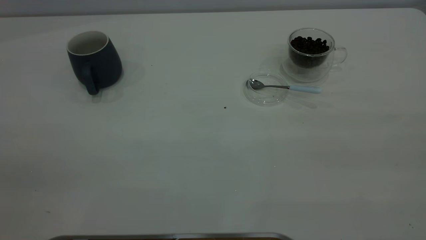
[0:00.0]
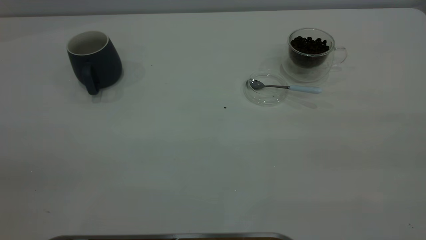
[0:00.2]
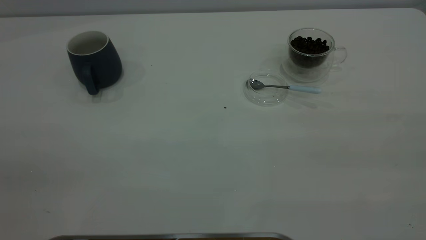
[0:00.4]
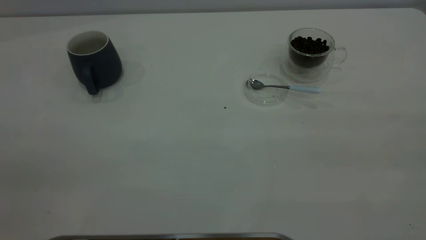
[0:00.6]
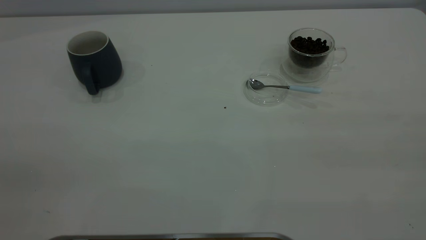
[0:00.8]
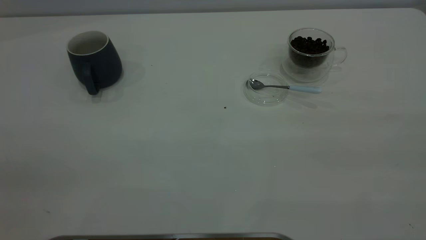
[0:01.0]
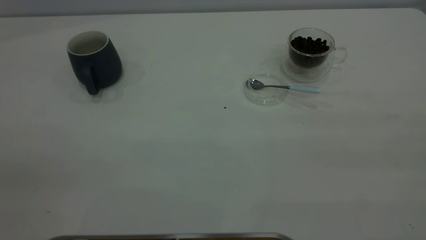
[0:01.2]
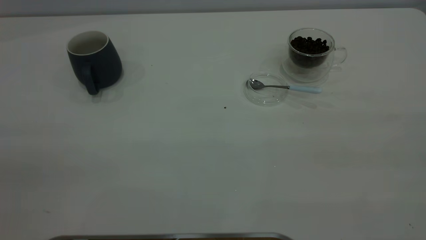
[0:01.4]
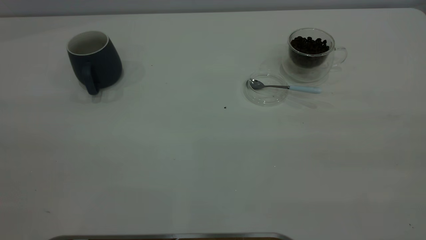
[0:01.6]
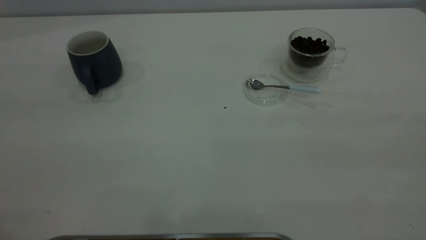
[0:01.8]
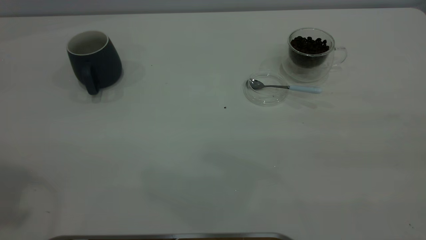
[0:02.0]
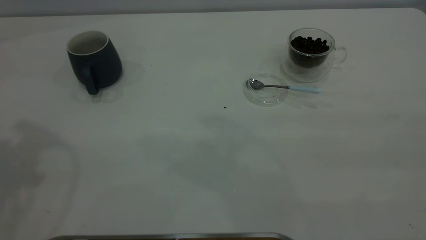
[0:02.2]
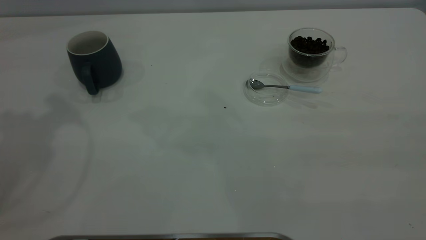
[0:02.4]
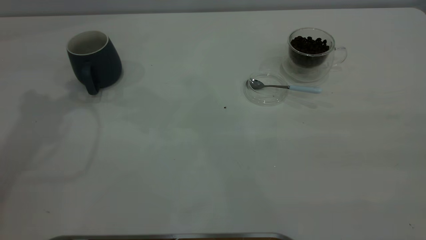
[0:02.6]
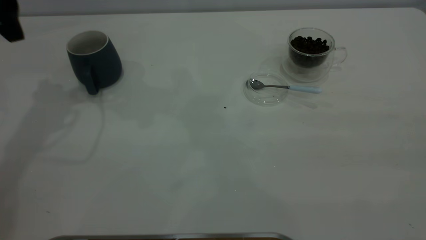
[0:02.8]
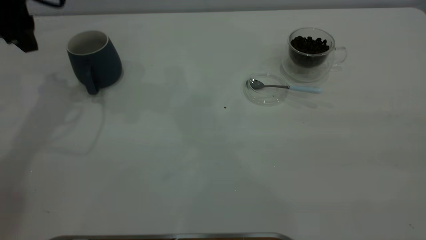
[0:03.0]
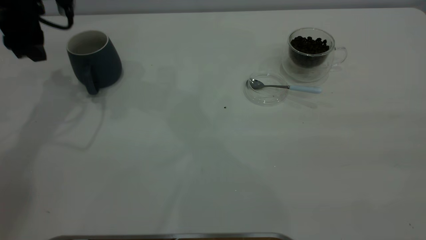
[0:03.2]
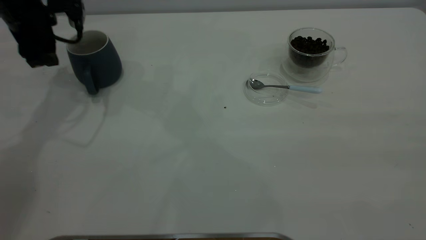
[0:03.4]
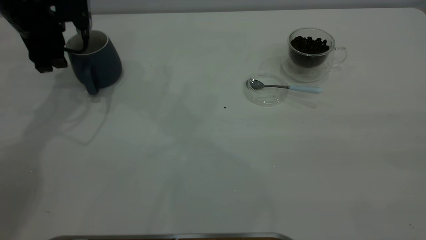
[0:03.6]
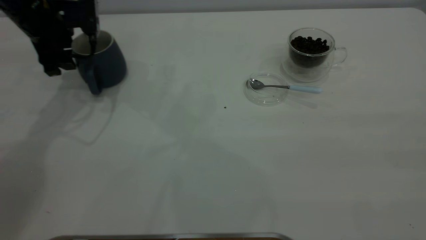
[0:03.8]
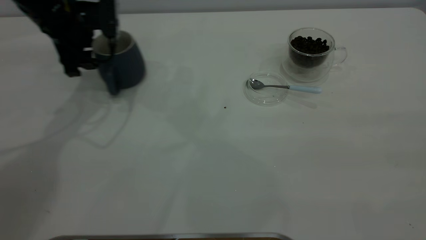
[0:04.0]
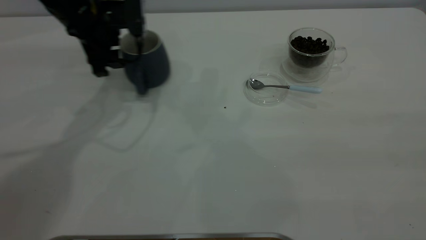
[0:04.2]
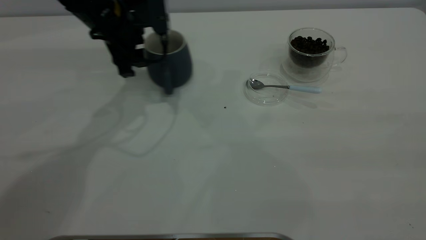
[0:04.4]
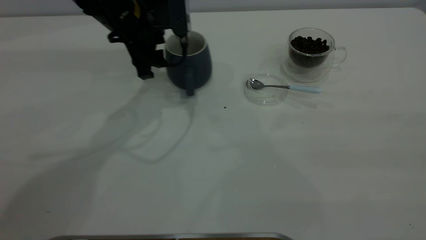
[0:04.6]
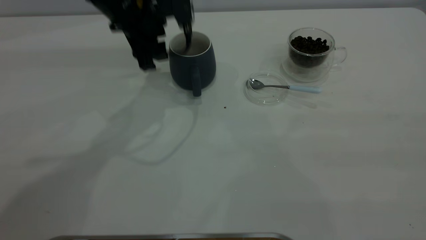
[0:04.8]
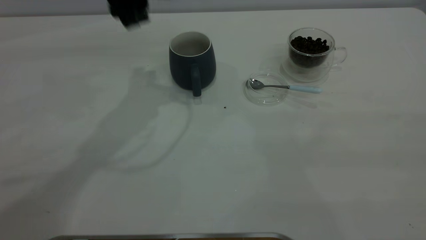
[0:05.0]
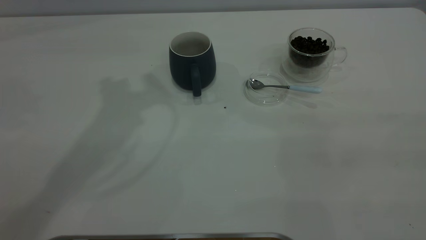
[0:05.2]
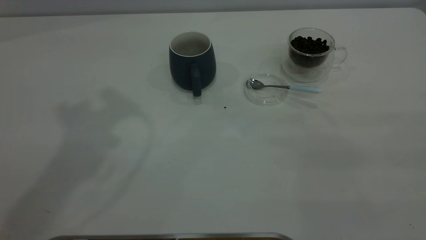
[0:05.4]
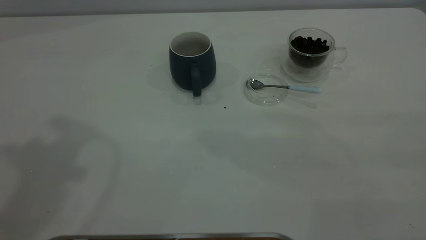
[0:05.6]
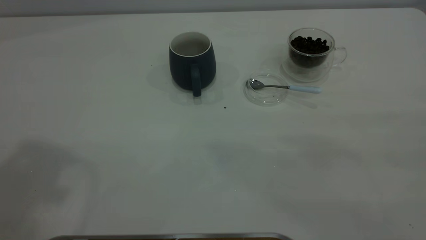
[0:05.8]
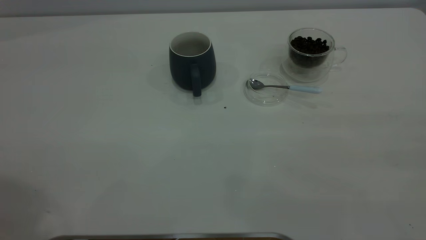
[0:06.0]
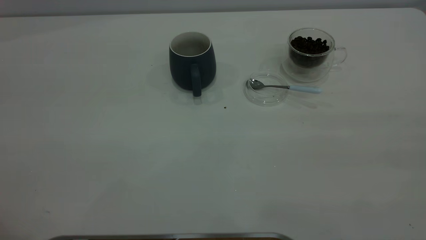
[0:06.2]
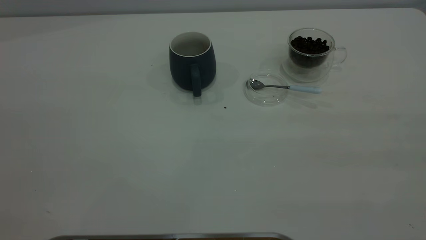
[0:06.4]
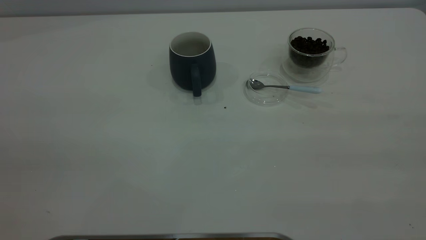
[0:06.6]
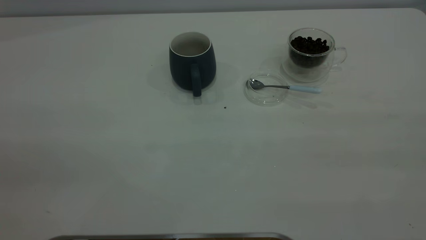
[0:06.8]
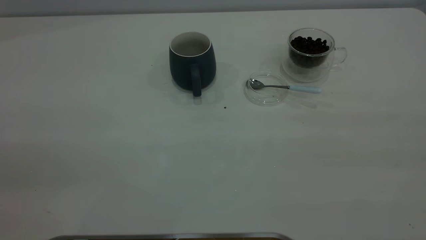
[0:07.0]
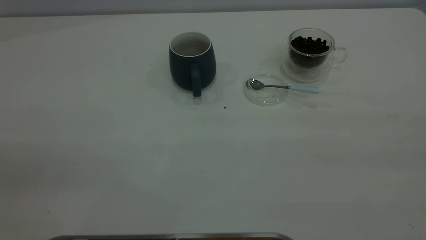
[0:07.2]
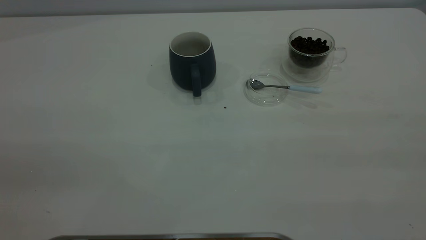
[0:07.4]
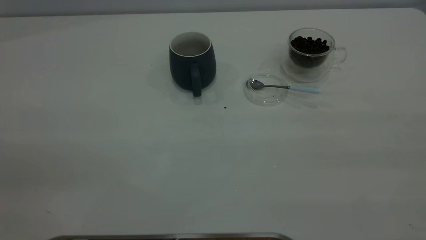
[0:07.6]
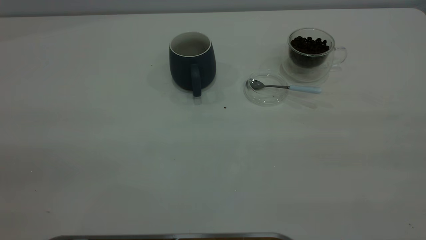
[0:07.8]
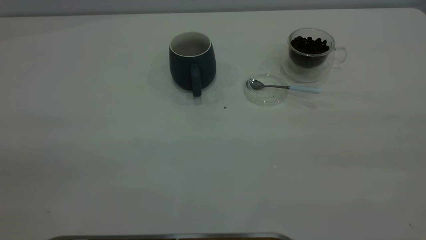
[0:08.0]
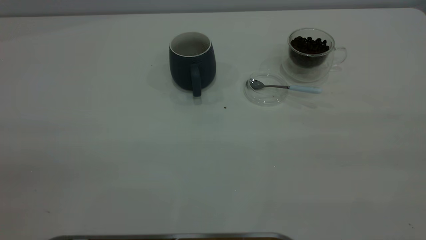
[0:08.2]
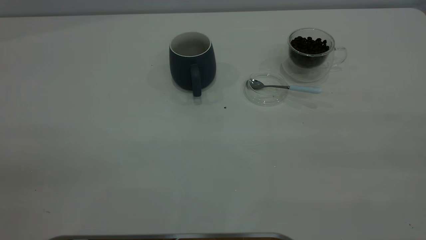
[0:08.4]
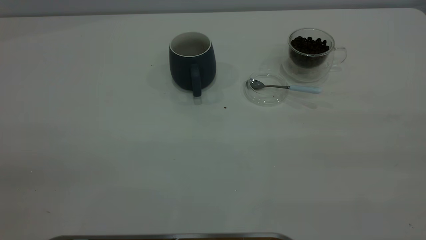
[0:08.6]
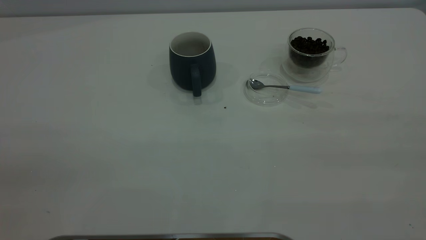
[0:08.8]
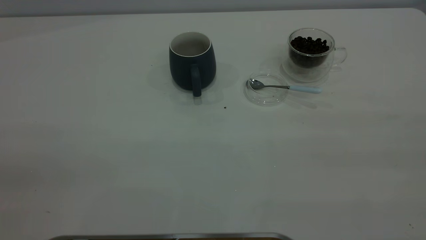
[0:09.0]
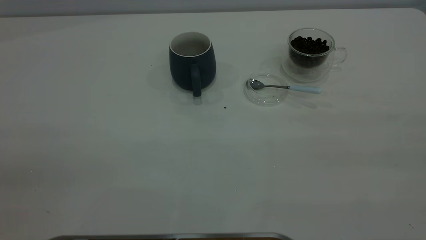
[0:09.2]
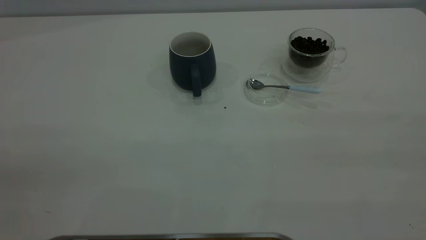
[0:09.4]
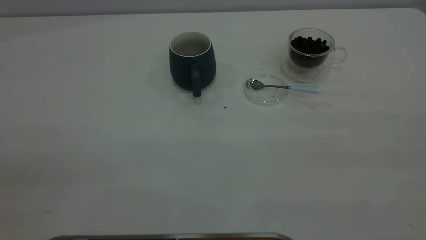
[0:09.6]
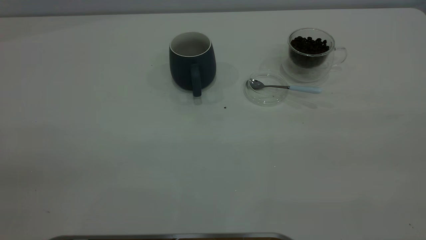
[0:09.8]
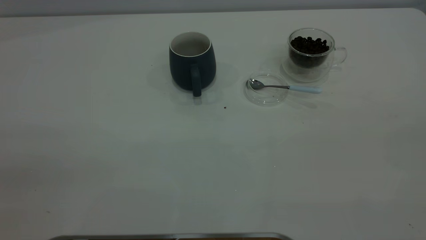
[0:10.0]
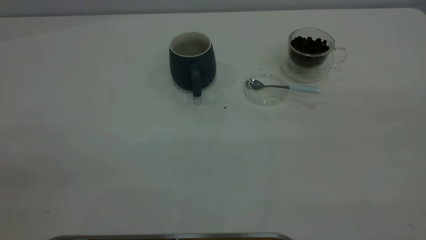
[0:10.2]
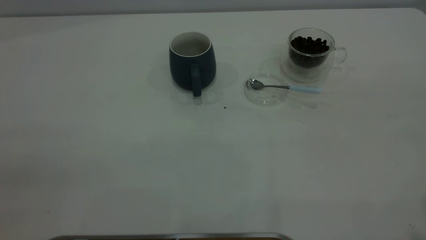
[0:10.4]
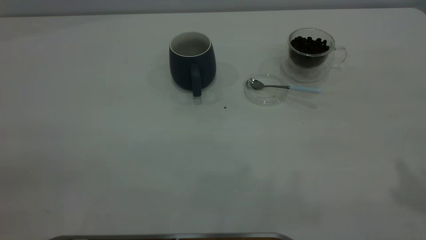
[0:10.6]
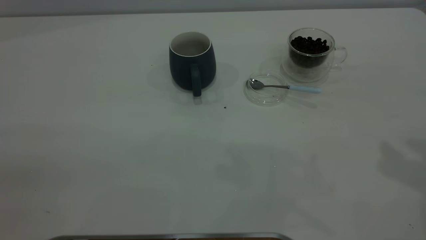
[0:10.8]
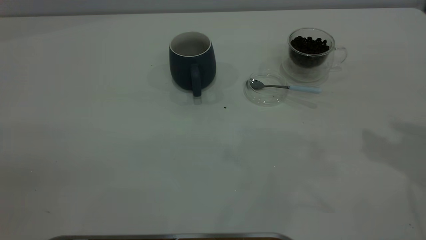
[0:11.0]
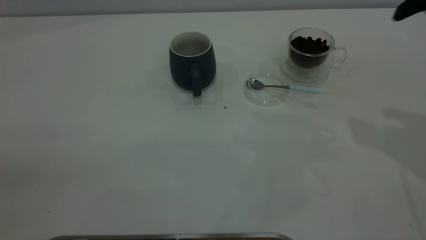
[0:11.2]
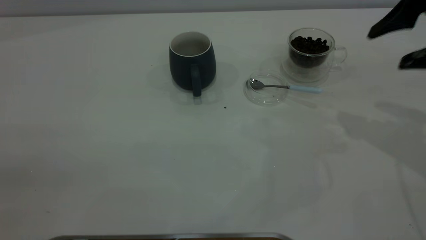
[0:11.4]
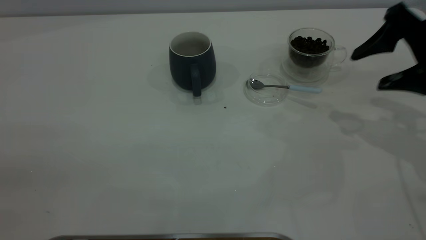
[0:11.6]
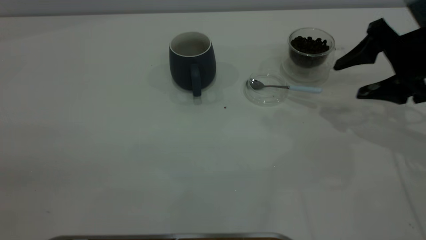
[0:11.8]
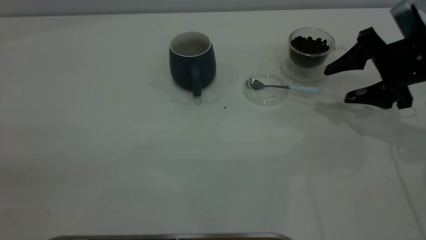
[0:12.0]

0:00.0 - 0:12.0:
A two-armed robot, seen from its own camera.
Task of the whole recording: the left gripper place the grey cup in the center of the table, the right gripper take the blue spoon from the cup lid and scoop out the coffee beans from the coffee cup and put them into the grey cup, the right gripper put the spoon back into the cup lid.
Step, 0:00.0 - 0:04.8: Move the cup to the center of view.
0:01.6 - 0:03.0: The left gripper heads forward and downward, covering approximately 40 cm.
0:03.0 - 0:04.4: The left gripper shifts some 15 cm to the right and downward.
0:04.4 - 0:06.0: The left gripper shifts approximately 50 cm upward and backward.
0:10.4 - 0:12.0: The right gripper is displaced downward and forward by approximately 35 cm, and opens its fingers.

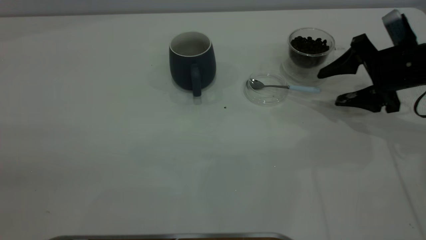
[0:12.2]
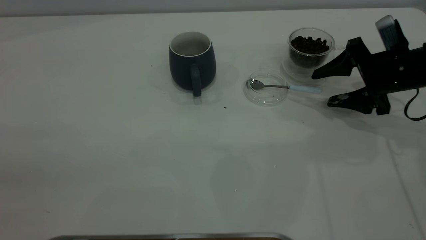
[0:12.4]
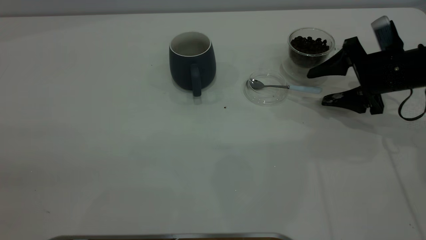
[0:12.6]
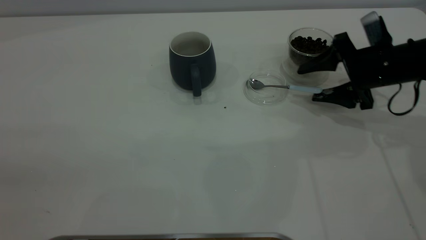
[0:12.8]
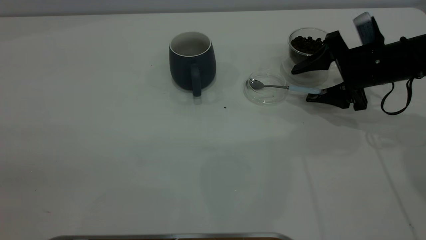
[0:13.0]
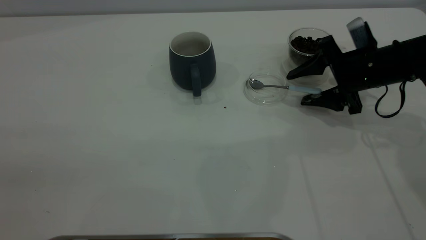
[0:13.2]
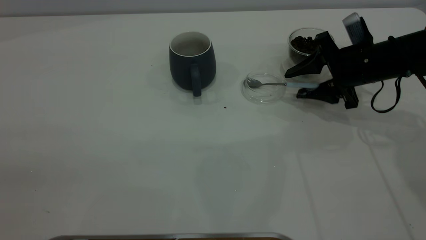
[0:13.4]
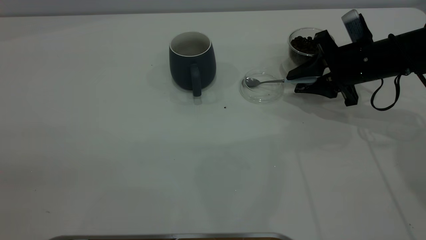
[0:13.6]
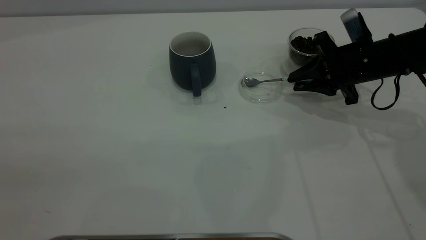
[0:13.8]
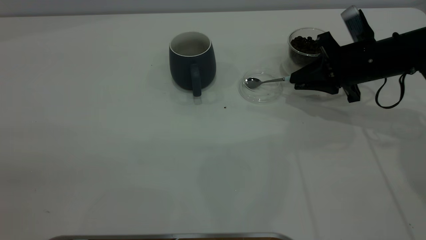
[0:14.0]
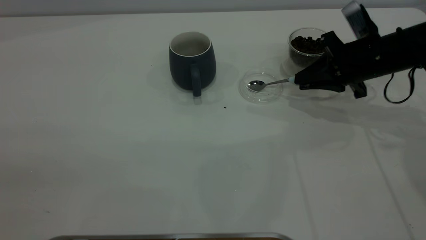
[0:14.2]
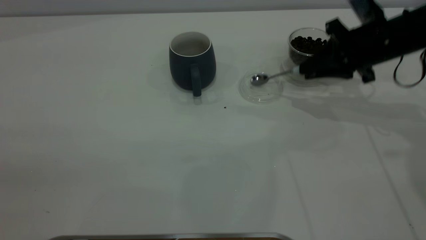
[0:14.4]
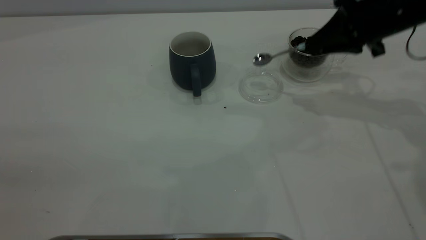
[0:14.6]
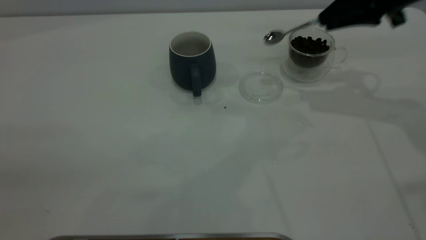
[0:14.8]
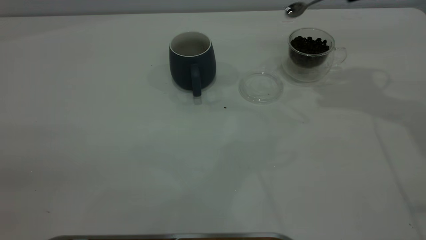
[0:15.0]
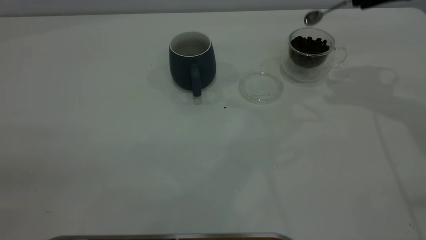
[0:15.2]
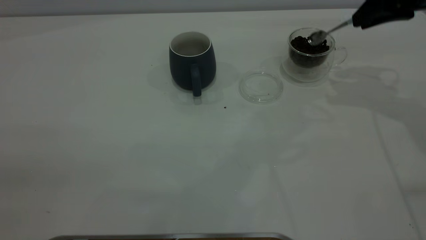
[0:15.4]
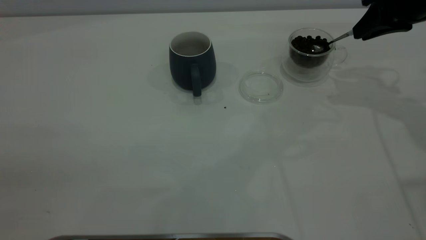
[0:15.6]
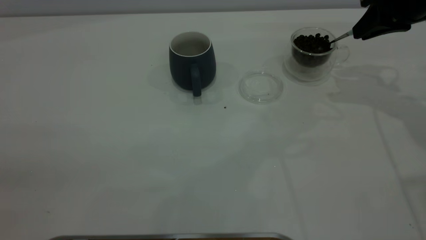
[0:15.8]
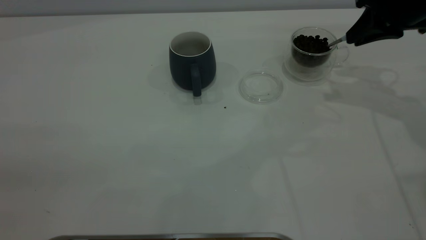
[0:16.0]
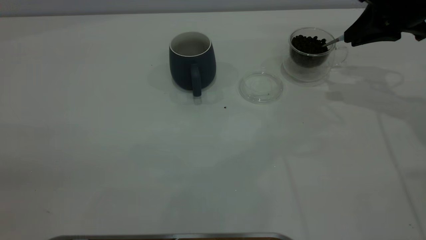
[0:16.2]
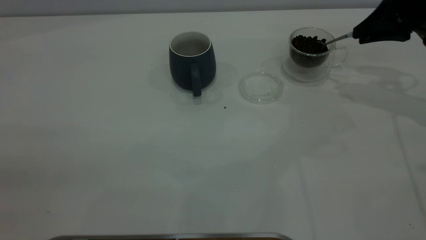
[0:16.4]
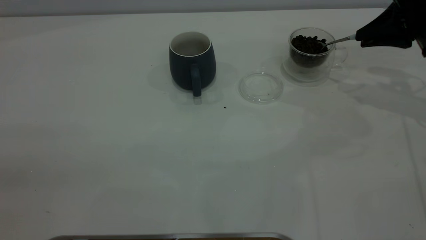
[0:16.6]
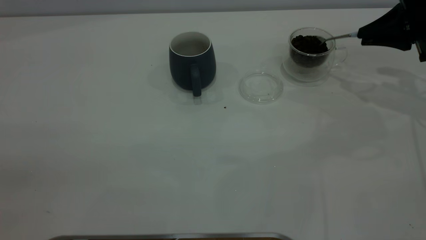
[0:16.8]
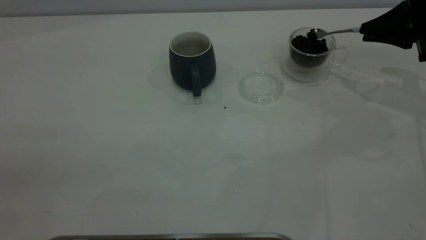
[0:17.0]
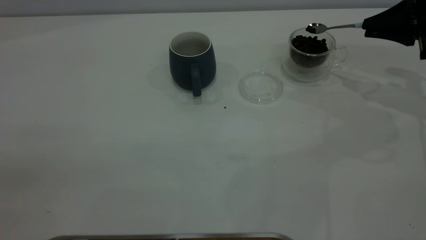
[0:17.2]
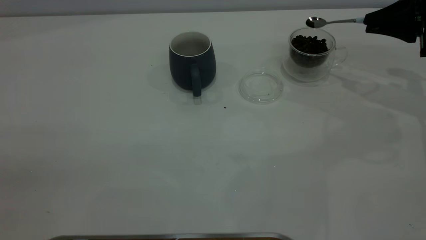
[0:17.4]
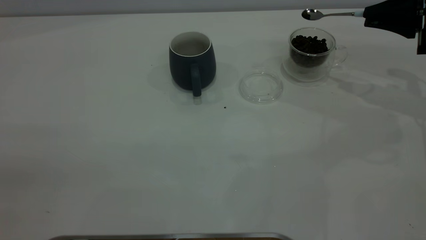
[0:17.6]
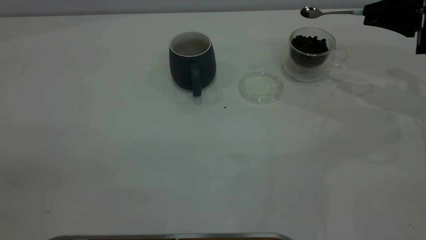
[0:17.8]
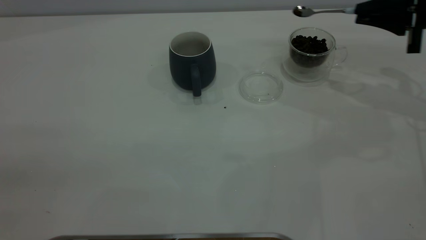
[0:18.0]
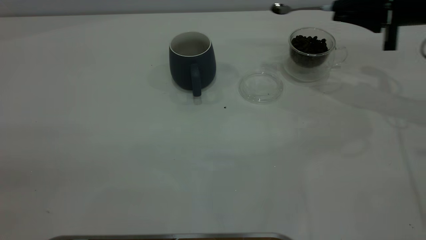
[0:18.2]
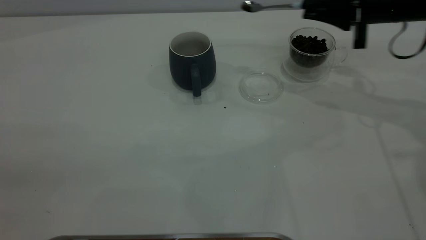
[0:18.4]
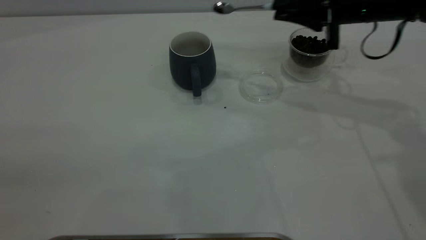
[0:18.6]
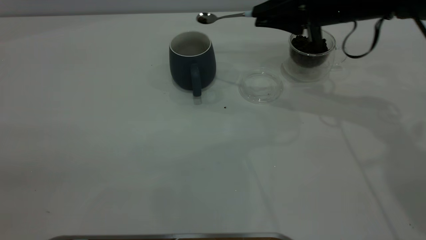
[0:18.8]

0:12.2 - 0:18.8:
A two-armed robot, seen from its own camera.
Task of the whole recording: the left gripper place the grey cup in the center of the table, the right gripper take the blue spoon from the cup lid and scoop out the coffee beans from the coffee cup and put them into the grey cup, the right gripper put the spoon back into the cup lid.
Step, 0:12.2 - 0:14.4: Pick up the spoon.
0:12.2 - 0:13.8: The right gripper ends up about 5 cm from where it was, and closes its fingers.
0:13.8 - 0:15.4: The right gripper shifts approximately 15 cm upward.
0:15.4 - 0:17.2: The right gripper moves to the right and downward, about 10 cm.
0:17.2 - 0:18.8: The right gripper travels to the left by some 15 cm.
